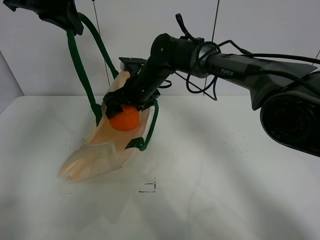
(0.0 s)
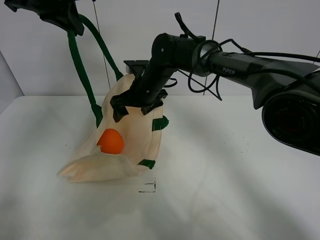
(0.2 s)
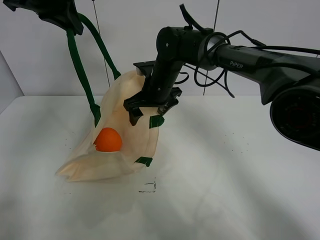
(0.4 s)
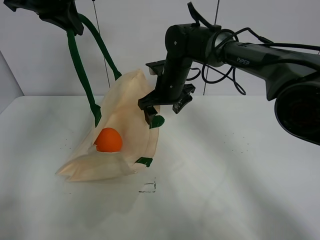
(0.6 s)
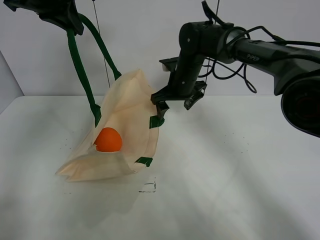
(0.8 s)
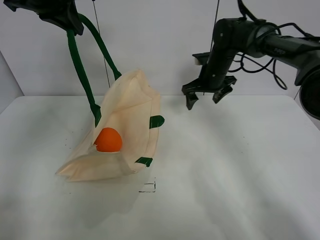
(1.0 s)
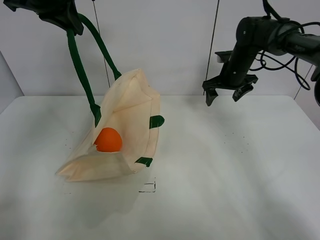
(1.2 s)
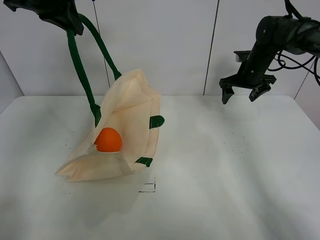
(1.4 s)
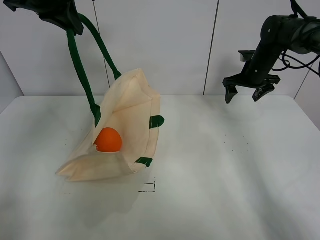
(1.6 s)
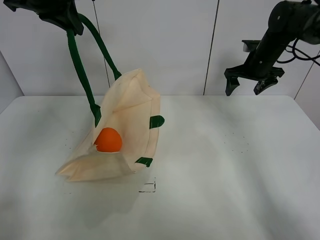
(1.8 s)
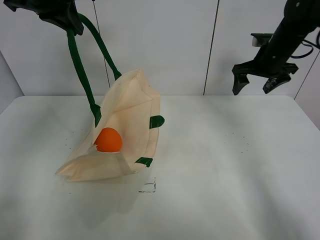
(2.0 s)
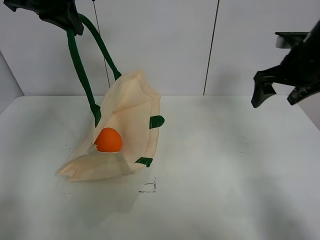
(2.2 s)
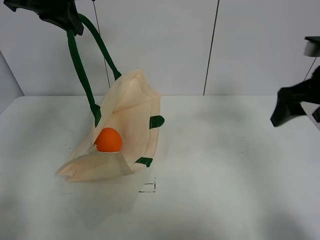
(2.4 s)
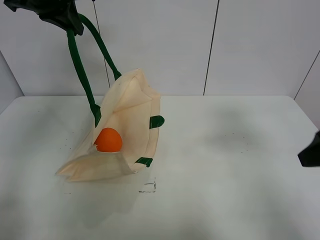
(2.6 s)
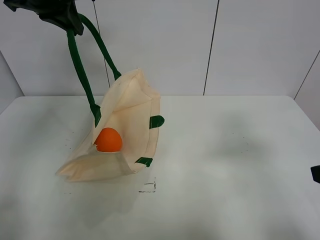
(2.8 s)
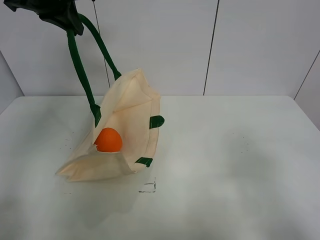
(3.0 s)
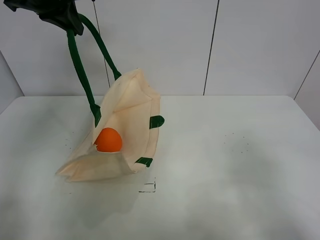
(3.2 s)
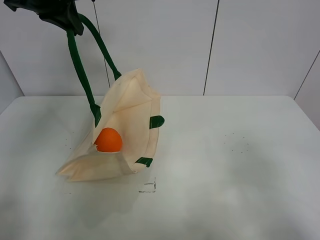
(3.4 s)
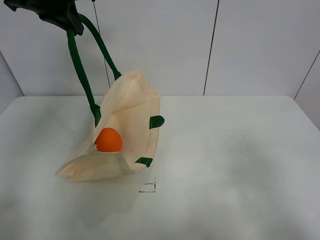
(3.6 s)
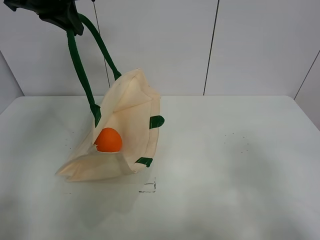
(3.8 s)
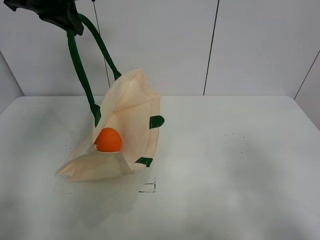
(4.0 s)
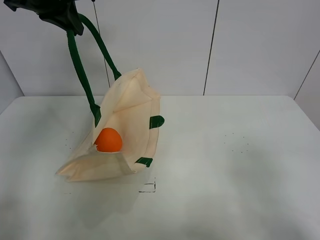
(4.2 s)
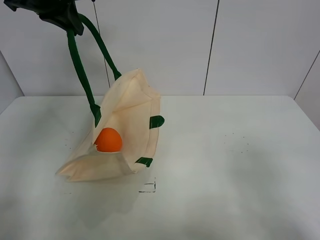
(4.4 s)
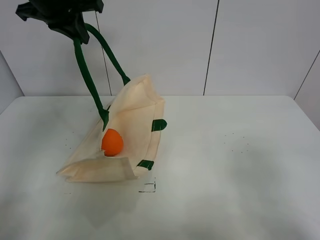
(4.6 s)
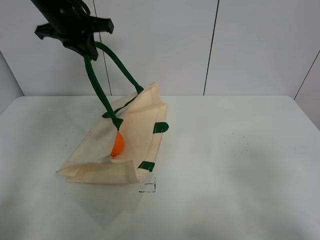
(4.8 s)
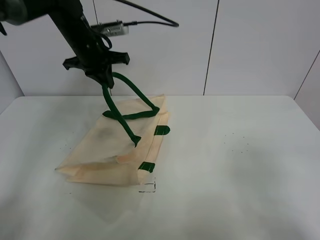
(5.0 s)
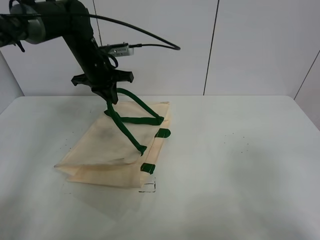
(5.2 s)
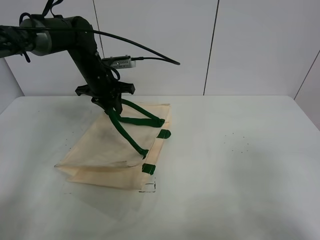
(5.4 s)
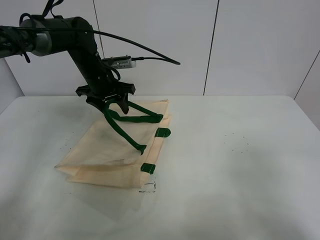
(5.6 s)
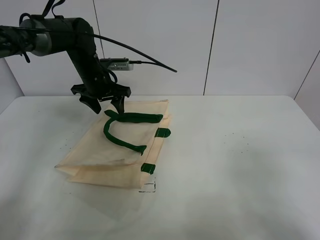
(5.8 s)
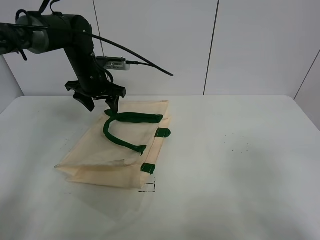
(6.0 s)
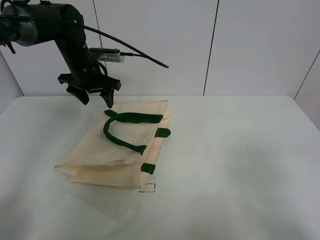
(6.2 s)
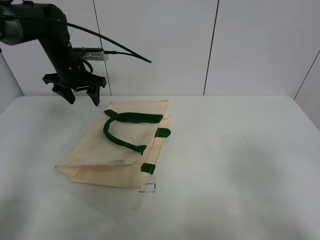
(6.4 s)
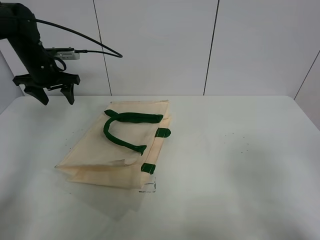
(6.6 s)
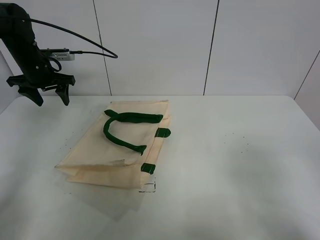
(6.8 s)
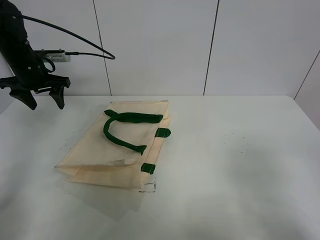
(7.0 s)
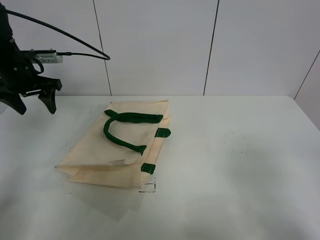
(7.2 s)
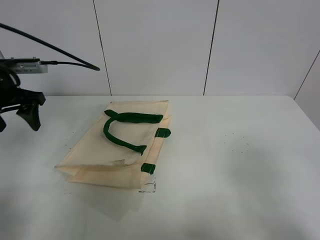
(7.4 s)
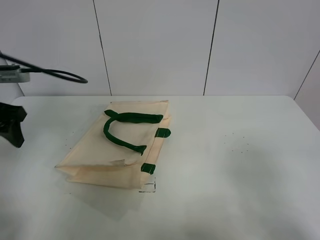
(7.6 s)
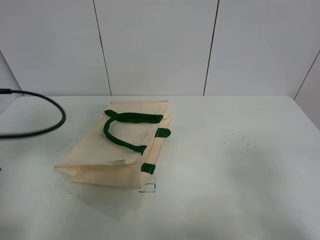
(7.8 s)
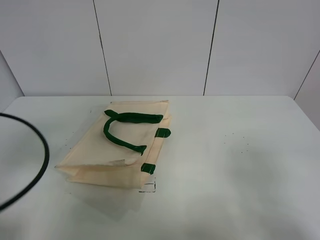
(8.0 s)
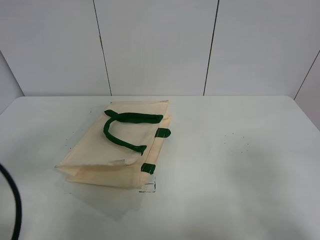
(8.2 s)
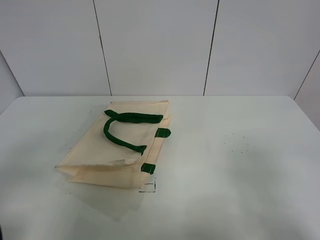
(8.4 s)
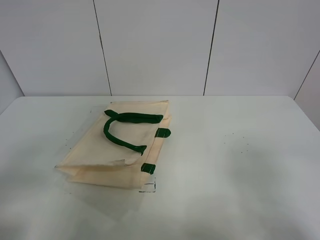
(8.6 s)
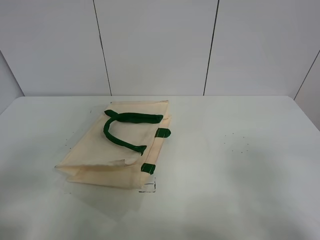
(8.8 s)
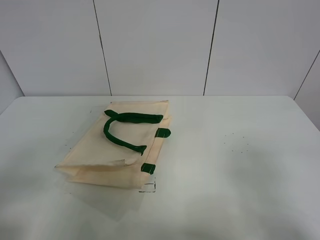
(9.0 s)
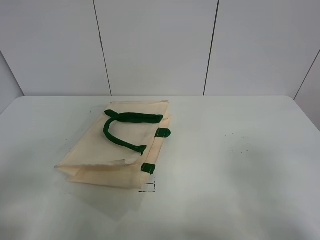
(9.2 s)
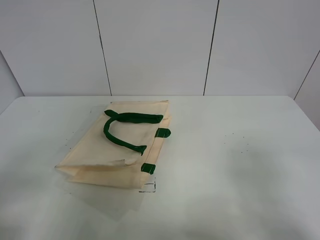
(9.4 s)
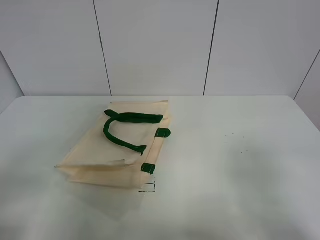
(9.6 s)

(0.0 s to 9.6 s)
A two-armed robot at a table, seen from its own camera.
Task of the whole recording: open the white linen bag and put the orange in the bag.
Step, 0.6 s - 5.8 s: Put down the handbag with left gripper.
0.0 s - 1.6 s: The right gripper goes some 30 cm to the right.
1.6 s - 3.2 s: The right gripper shifts about 50 cm backward.
3.2 s - 4.8 s: The left gripper moves downward, approximately 5 cm.
4.8 s - 6.4 s: The left gripper is displaced downward and to the left by about 15 cm, and opens its fingers.
6.4 s - 8.0 s: The left gripper travels backward by some 35 cm.
8.0 s - 9.6 s: The left gripper heads backward, covering approximately 10 cm.
